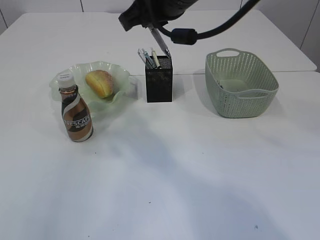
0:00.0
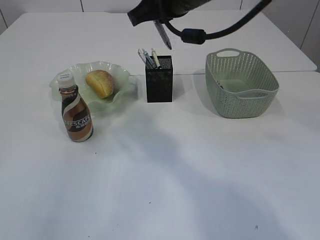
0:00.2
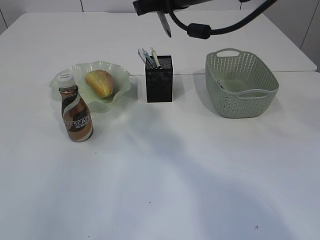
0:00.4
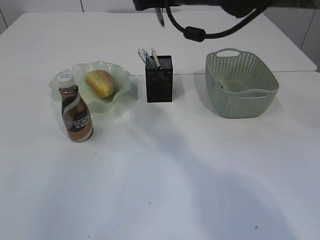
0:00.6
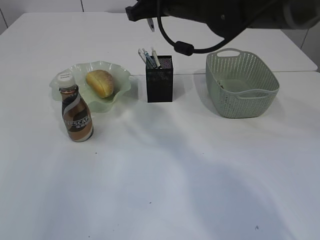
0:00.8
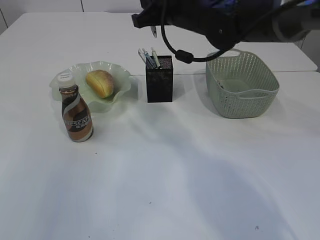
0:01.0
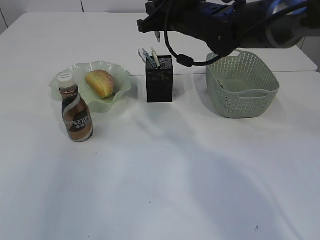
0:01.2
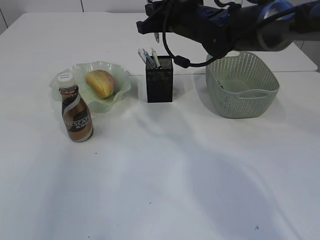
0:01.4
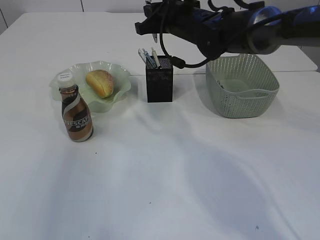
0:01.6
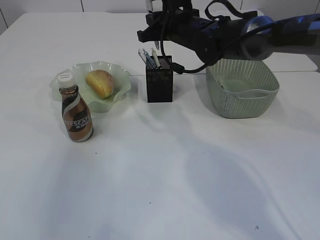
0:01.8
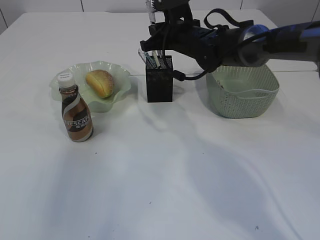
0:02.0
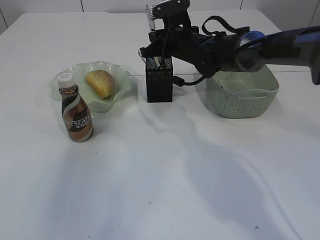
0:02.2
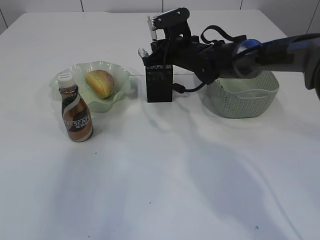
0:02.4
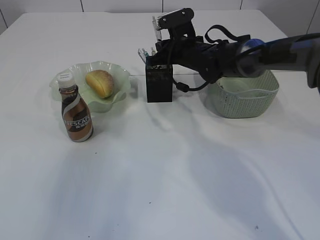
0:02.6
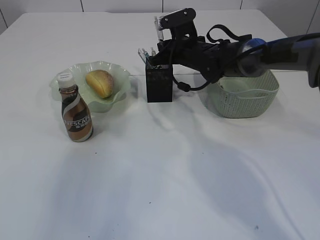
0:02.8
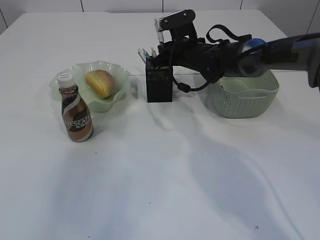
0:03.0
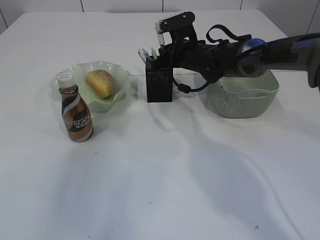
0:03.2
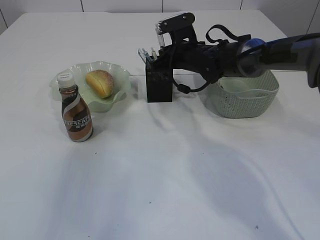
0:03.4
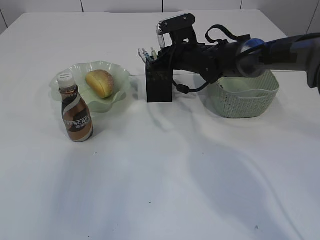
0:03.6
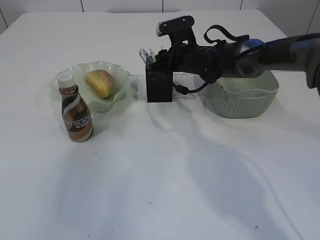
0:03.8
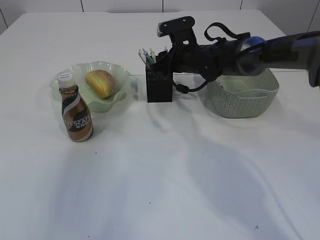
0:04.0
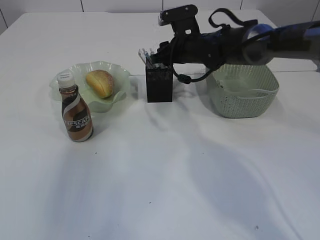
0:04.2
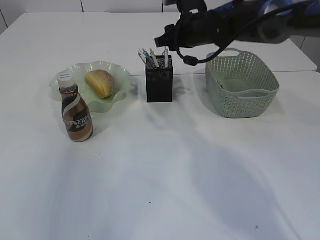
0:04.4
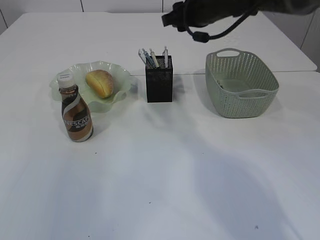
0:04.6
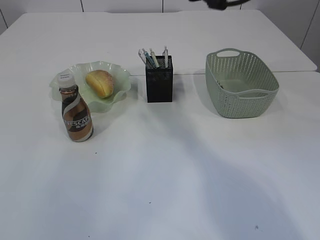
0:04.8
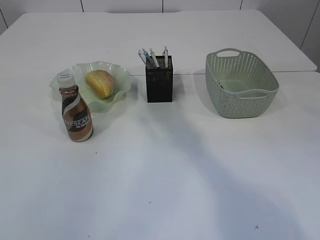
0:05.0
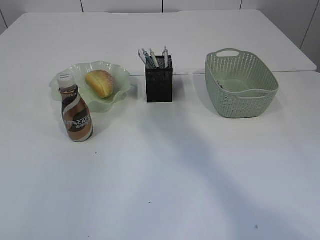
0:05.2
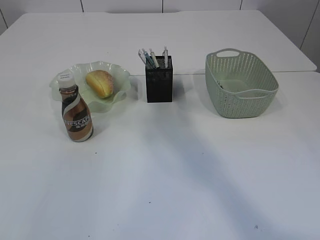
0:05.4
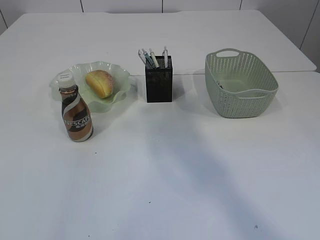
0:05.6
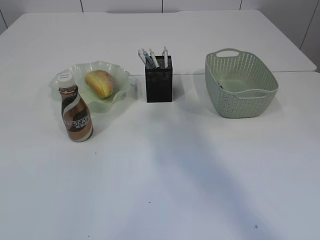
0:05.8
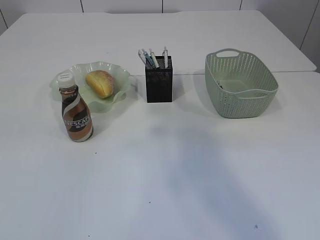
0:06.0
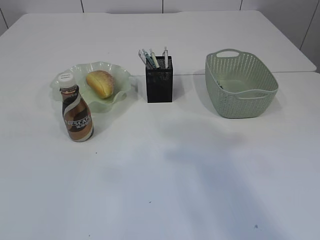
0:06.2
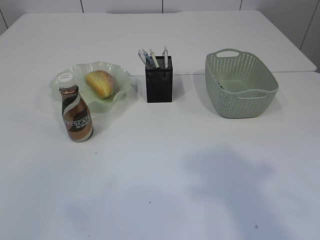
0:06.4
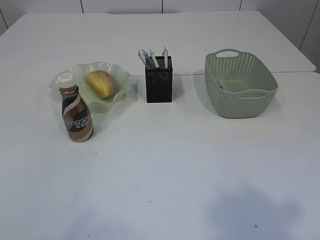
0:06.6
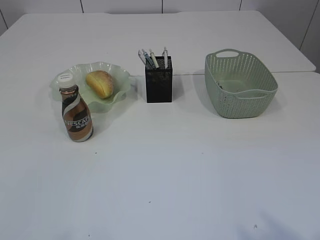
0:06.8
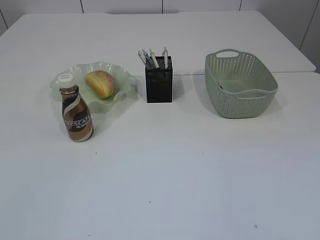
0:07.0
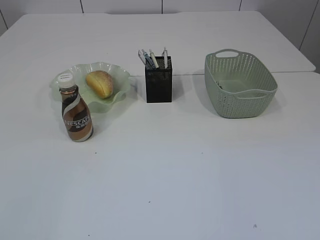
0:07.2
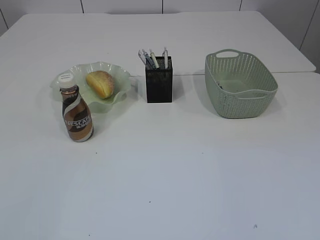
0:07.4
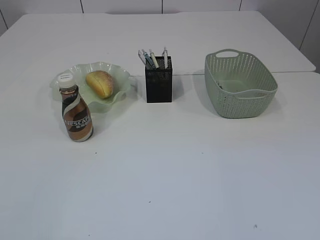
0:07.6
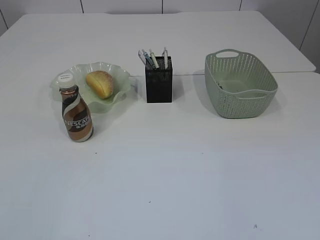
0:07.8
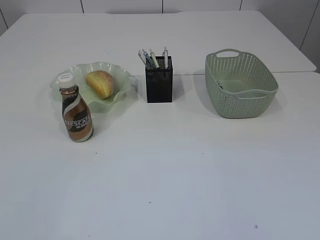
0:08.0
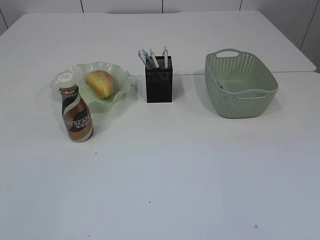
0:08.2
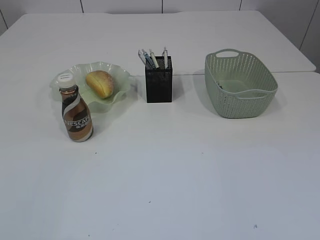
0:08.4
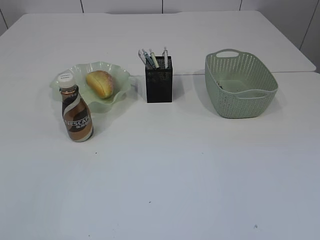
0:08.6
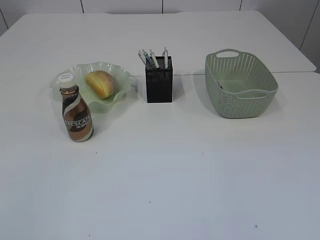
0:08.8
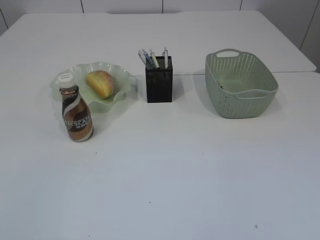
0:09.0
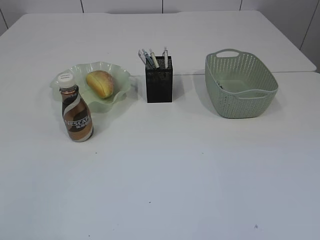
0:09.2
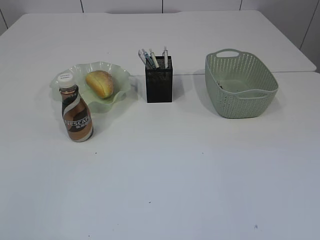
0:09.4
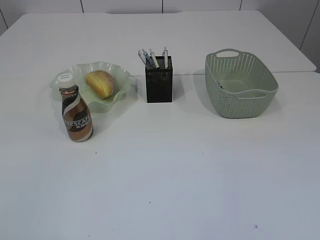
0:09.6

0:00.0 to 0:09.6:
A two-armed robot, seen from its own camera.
Step, 0:00.0 to 0:04.6: Place the pen into the pen holder.
0:00.0 to 0:01.6: The right gripper goes roughly 15 cm forward and downward.
0:01.6 to 0:03.2: The right gripper goes approximately 10 cm downward.
0:03.2 to 0:04.8: The left gripper moves upward, roughly 5 cm, and opens its fingers. The right gripper shifts about 20 cm upward and backward, and opens its fingers.
0:04.8 to 0:06.4: Both grippers travel together backward, about 25 cm.

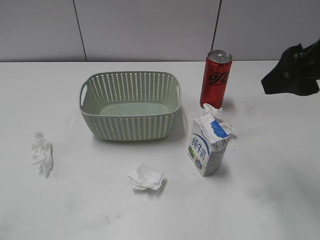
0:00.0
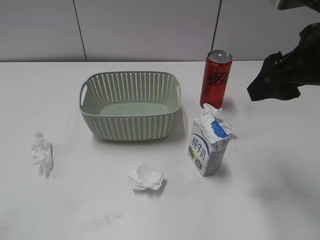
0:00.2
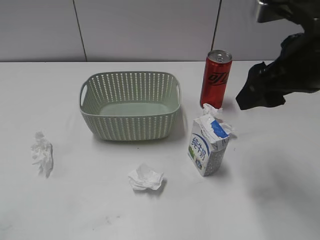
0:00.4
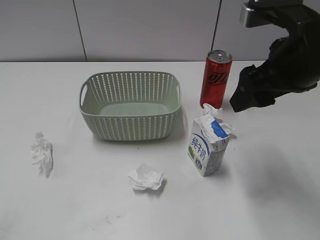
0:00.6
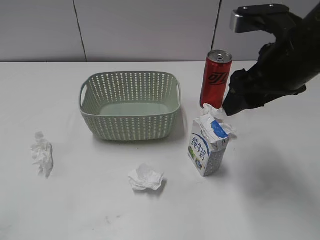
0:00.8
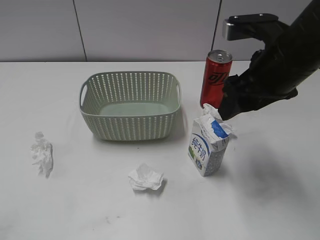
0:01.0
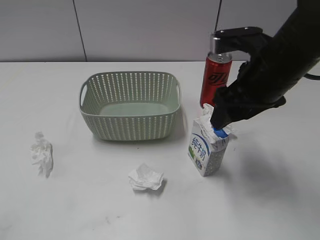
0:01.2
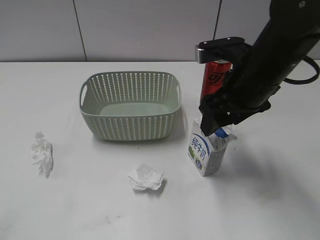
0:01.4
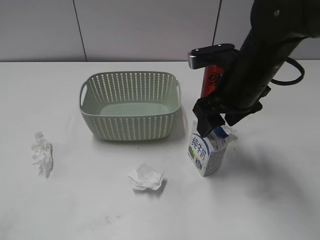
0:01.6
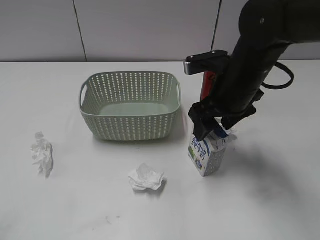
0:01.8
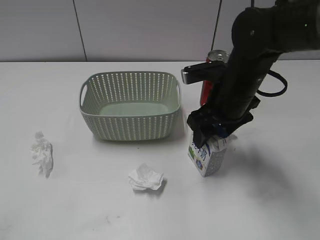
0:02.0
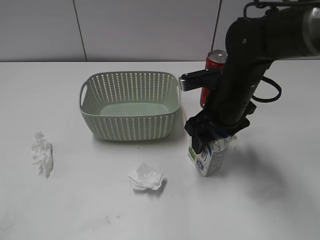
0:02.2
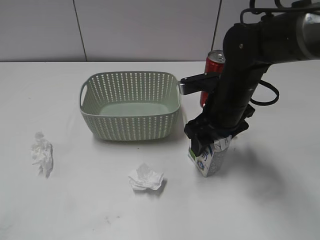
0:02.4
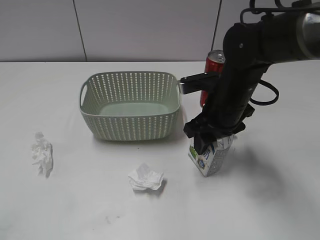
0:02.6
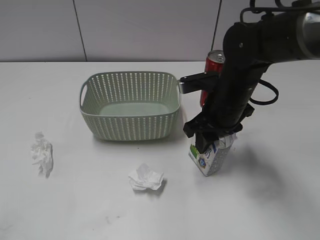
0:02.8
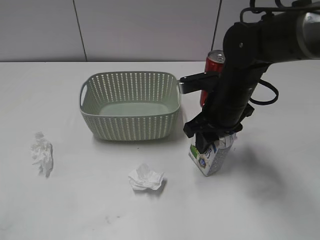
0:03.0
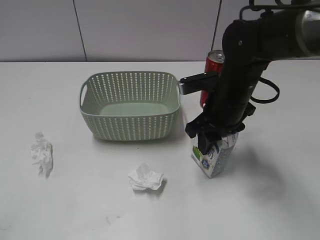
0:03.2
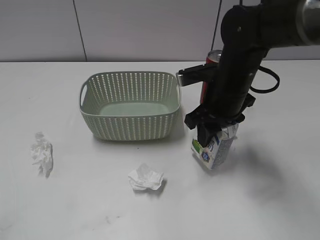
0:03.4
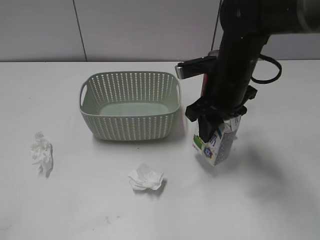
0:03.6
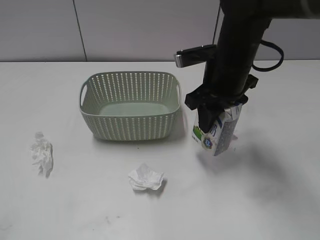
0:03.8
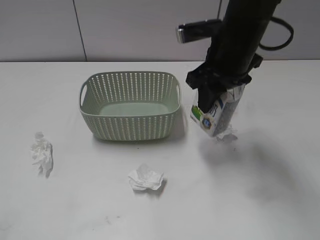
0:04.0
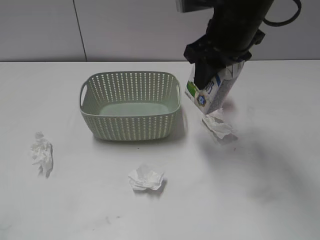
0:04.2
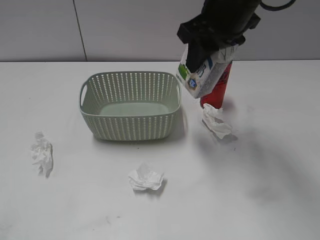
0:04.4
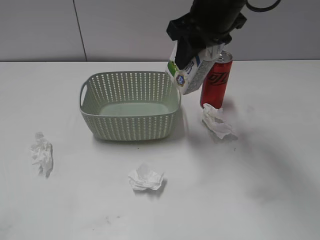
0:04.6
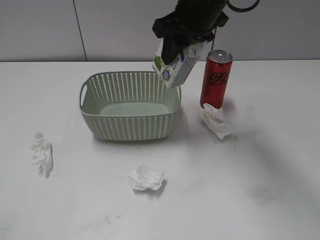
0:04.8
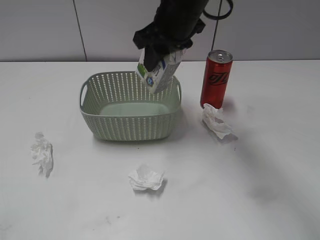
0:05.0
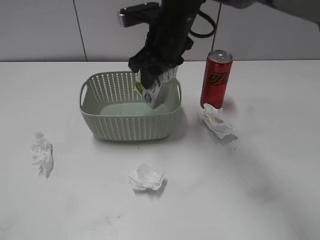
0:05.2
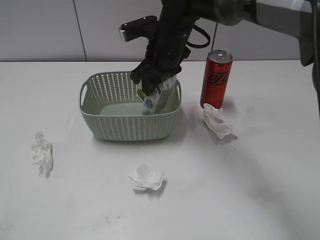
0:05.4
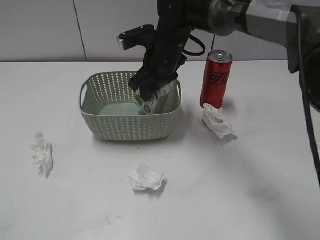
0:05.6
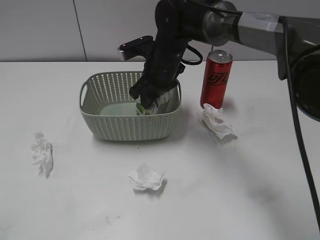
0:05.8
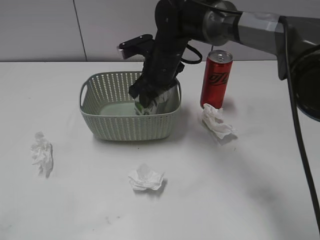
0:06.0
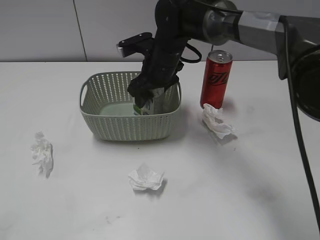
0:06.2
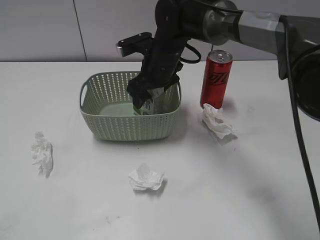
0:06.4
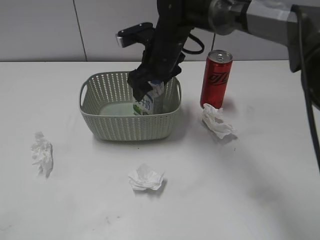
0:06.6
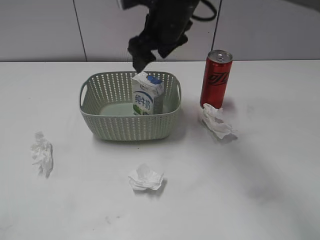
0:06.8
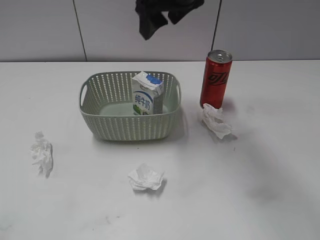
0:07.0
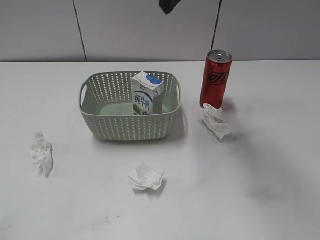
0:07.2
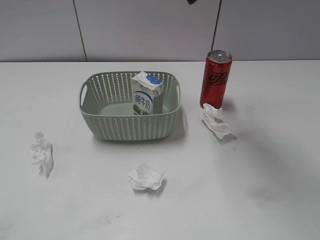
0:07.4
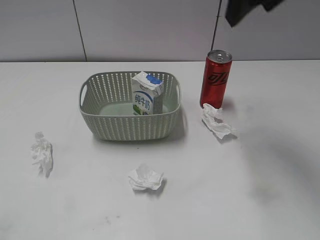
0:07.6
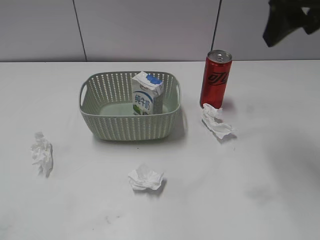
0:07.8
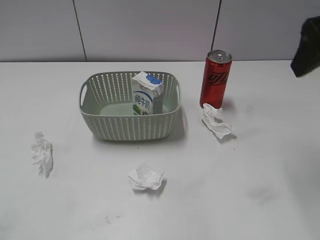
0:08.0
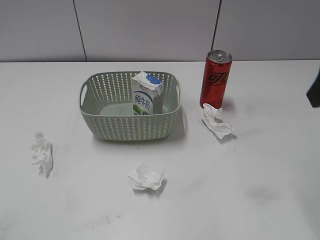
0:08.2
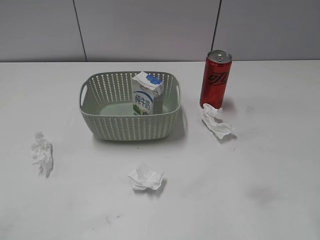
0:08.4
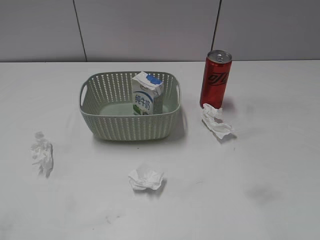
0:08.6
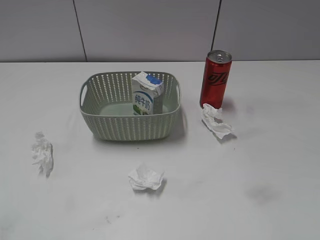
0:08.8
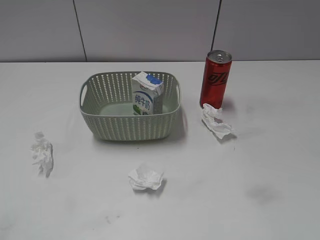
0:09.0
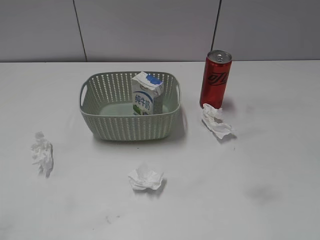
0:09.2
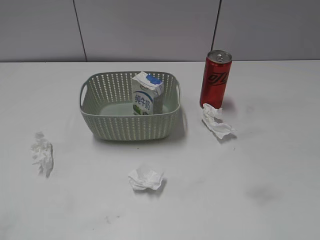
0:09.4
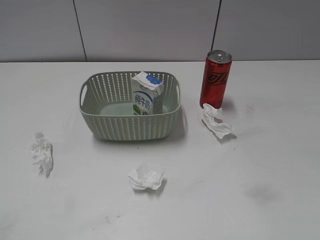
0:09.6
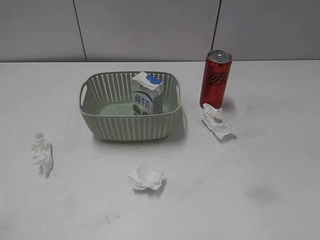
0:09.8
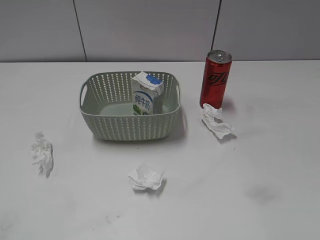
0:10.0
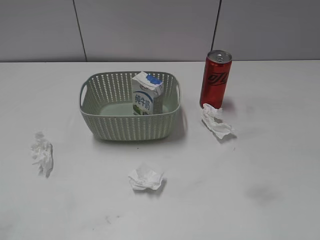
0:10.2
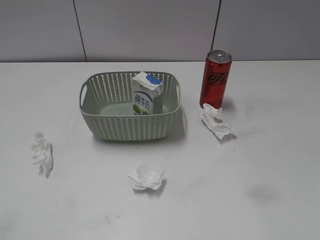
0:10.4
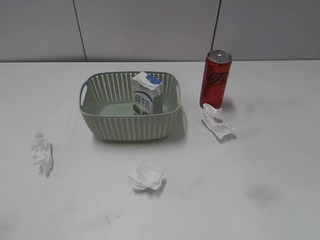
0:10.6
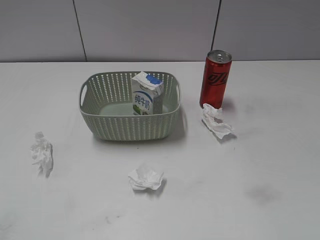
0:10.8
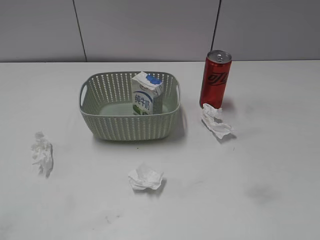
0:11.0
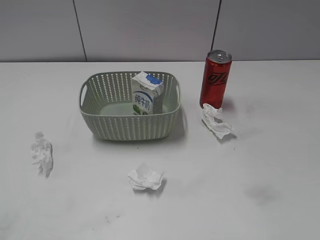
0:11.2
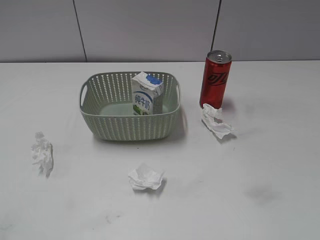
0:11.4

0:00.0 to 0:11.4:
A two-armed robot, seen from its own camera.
Step, 0:00.0 to 0:02.8: Grasp the milk with right gripper.
Step, 0:03.0 to 0:06.8: Place the milk in the basket with right gripper.
0:00.0 to 0:01.4: The right gripper travels downward, to the left and forward by some 15 cm.
0:01.4 to 0:02.8: The right gripper heads downward, covering about 10 cm, and closes.
0:02.8 to 0:04.2: The right gripper shifts some 15 cm upward.
0:04.2 to 0:05.6: The right gripper goes about 15 cm downward, to the left and forward.
0:05.6 to 0:07.2: The right gripper heads upward, covering roughly 20 cm, and opens its fingers.
0:07.2 to 0:08.6: The right gripper is displaced backward and to the right by some 30 cm.

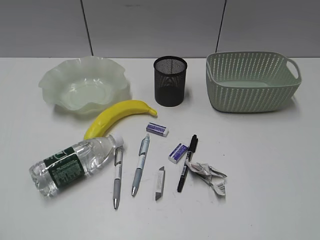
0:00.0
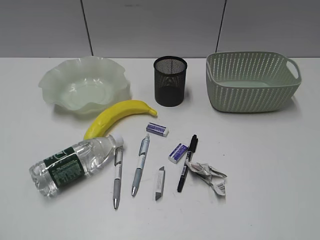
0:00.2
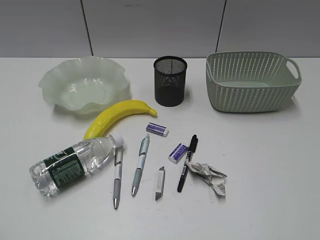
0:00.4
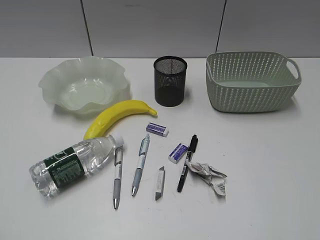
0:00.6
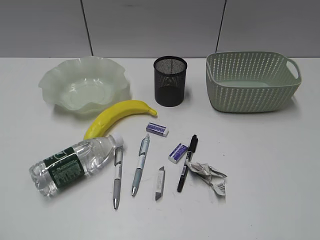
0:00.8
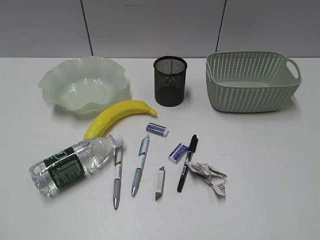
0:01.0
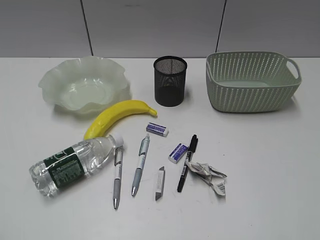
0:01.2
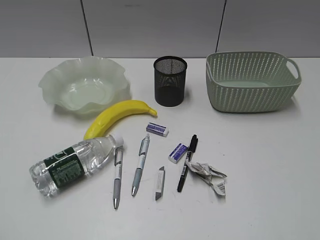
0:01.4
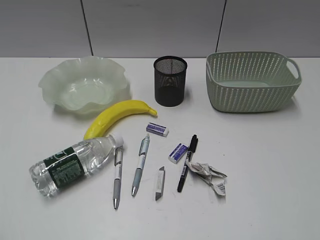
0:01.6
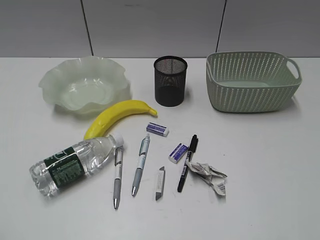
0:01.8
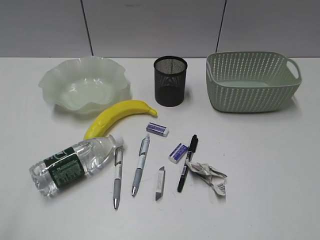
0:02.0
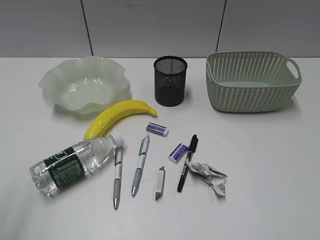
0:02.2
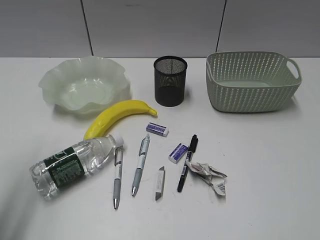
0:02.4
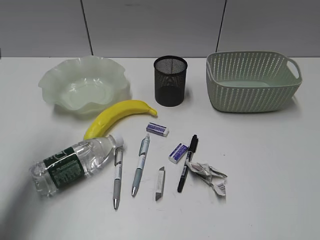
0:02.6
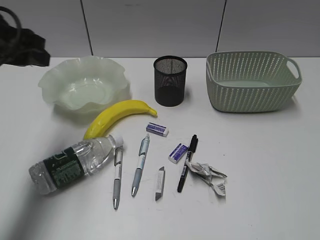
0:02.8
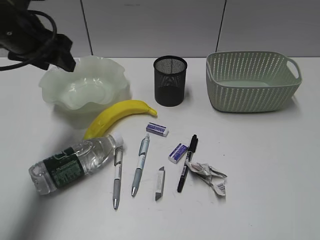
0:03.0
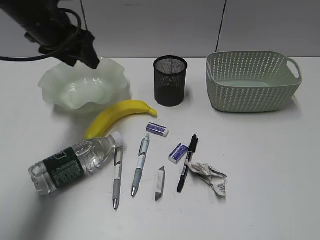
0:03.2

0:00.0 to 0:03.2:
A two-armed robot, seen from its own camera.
0:01.6 to 0:03.2: The left gripper heads forward, covering some 40 cm, and opens.
